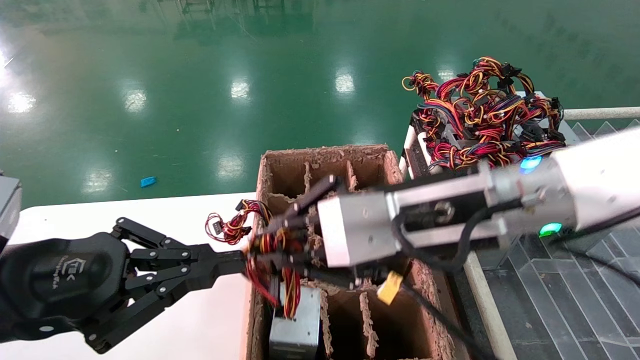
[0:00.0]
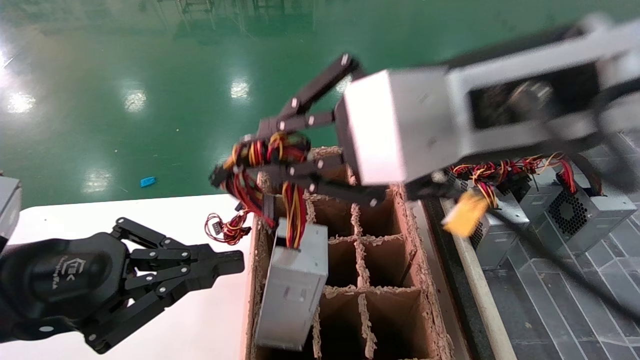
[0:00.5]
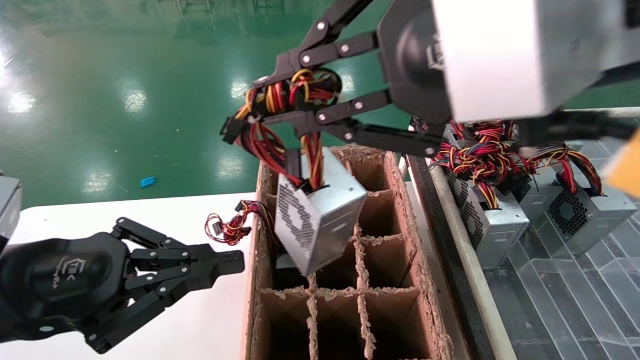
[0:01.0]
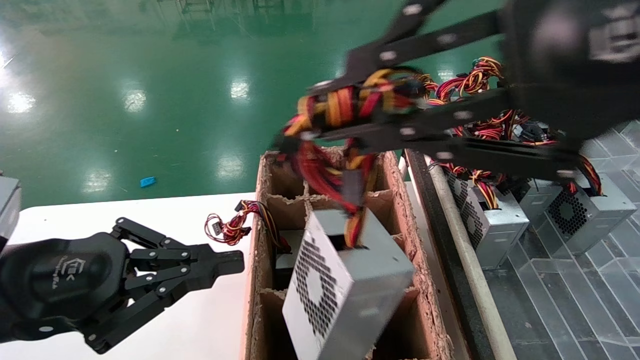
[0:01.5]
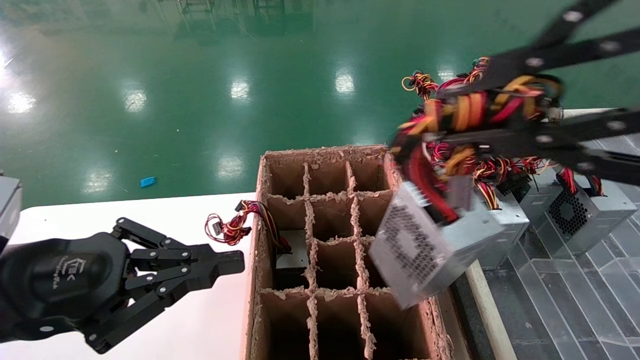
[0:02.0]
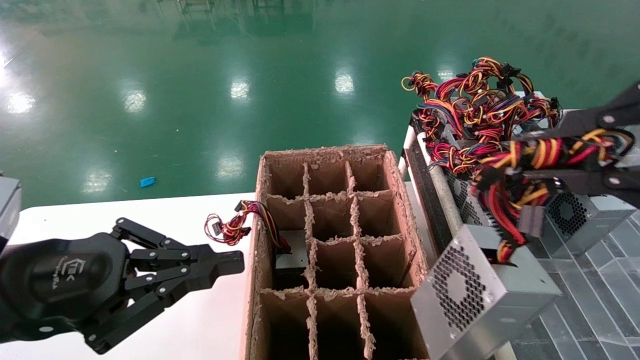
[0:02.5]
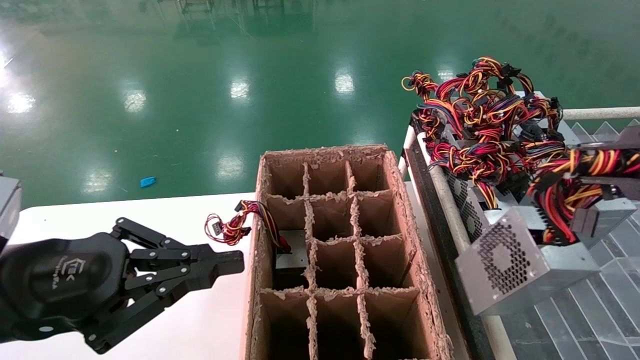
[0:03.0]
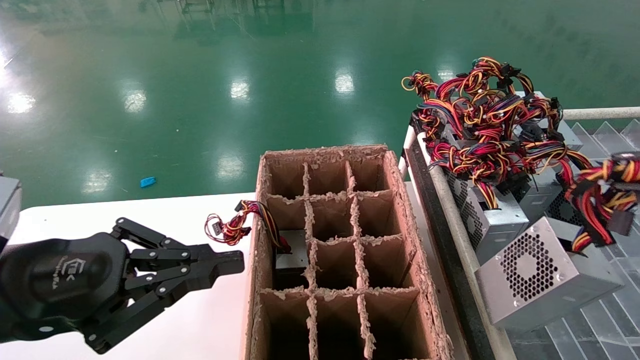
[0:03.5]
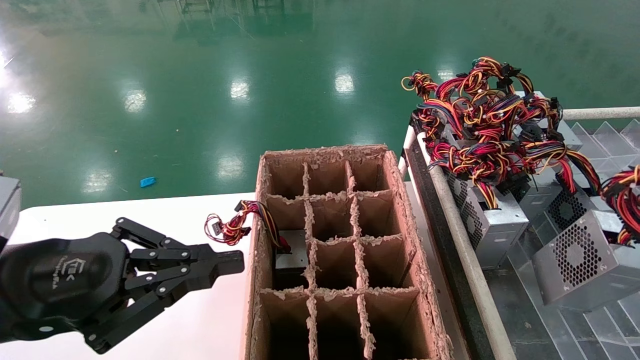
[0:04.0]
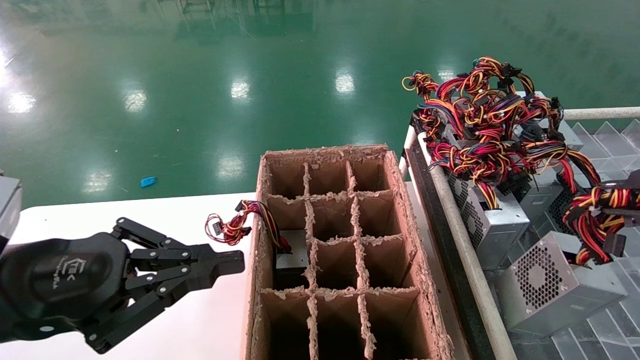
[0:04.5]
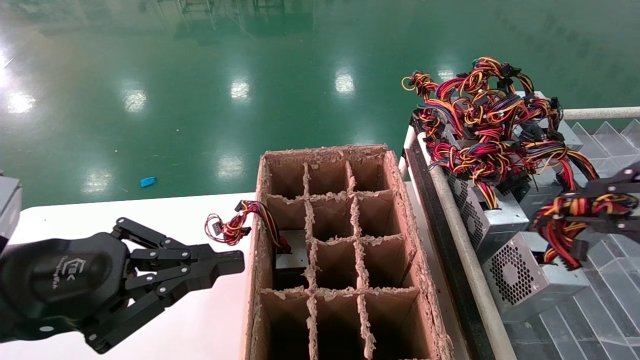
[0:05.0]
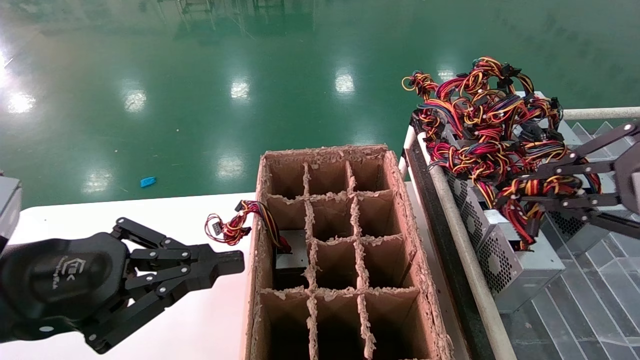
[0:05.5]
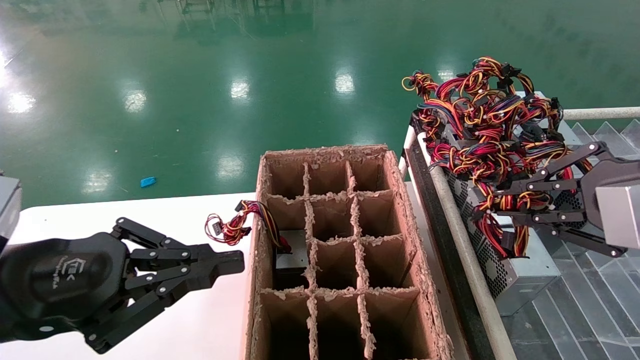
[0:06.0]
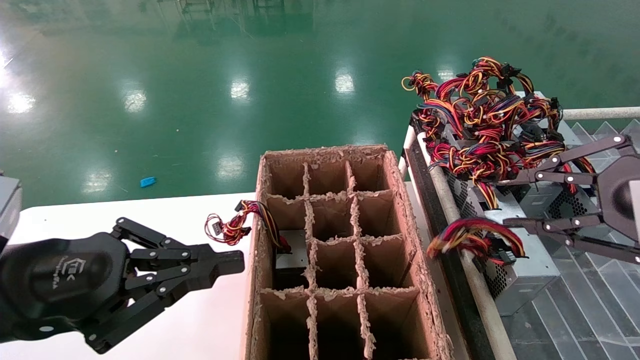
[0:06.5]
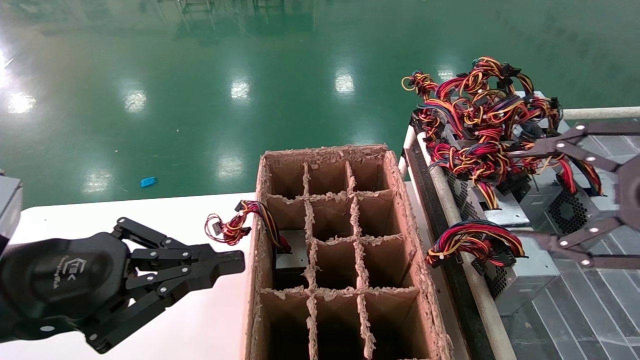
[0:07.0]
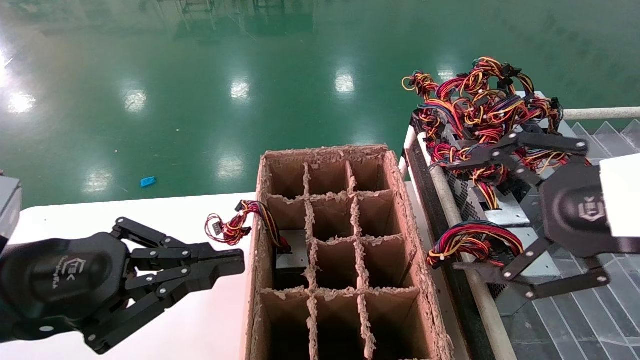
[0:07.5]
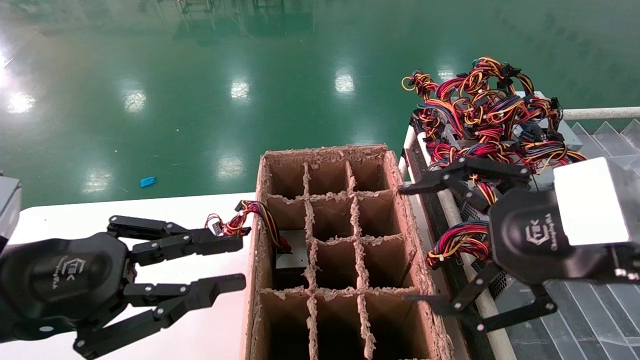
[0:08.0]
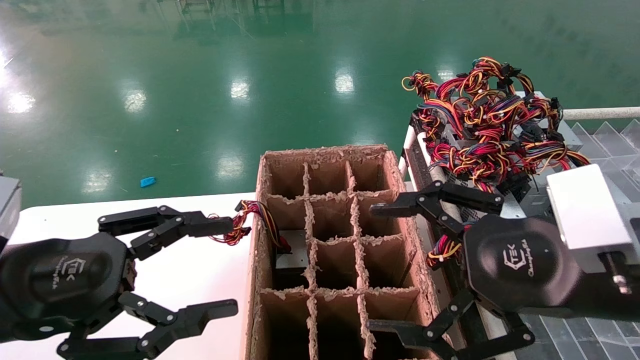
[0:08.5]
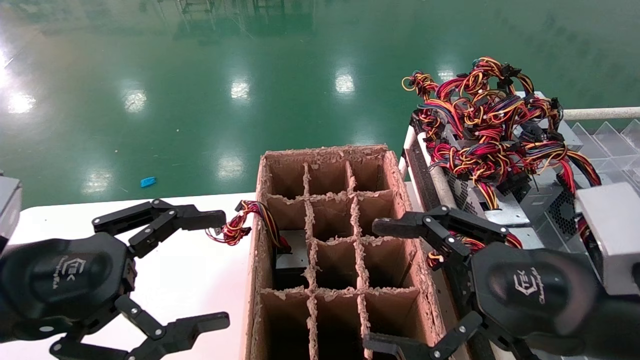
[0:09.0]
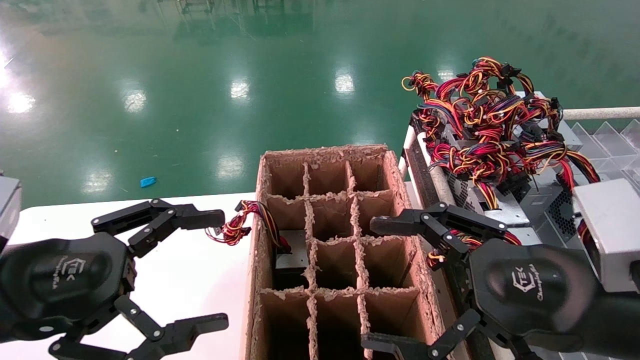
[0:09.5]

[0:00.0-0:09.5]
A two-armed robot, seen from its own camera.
Step, 0:00.0 to 0:06.5: Place the main unit power supply in the designated area.
0:00.0 to 0:02.0: The right gripper goes some 25 cm backward, upward and to the right.
0:02.0 to 0:04.0: The right gripper heads to the right and downward, covering roughly 15 cm.
0:04.0 to 0:05.5: The right gripper is displaced forward by about 10 cm.
0:05.5 to 0:07.5: The right gripper moves to the left, some 5 cm, and opens.
0:07.5 to 0:09.5: The left gripper opens; the right gripper is displaced downward by approximately 10 cm.

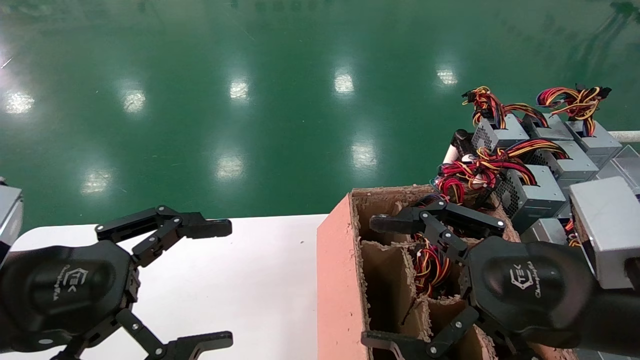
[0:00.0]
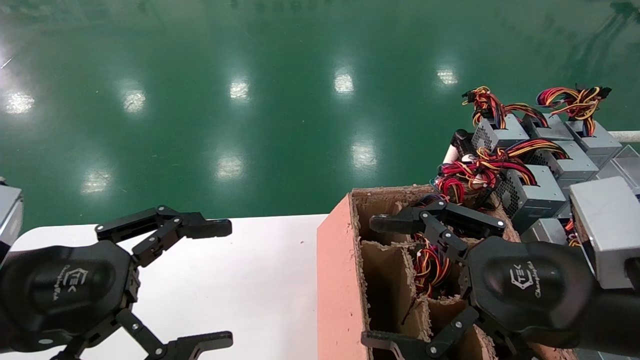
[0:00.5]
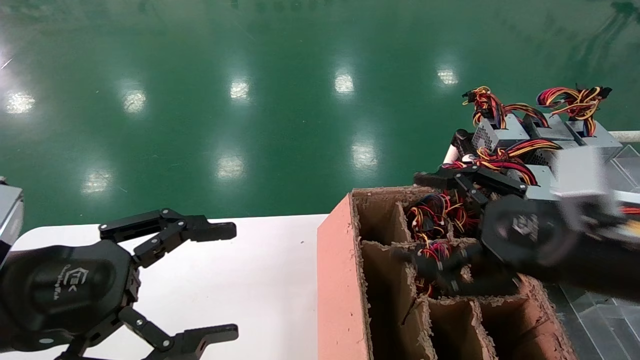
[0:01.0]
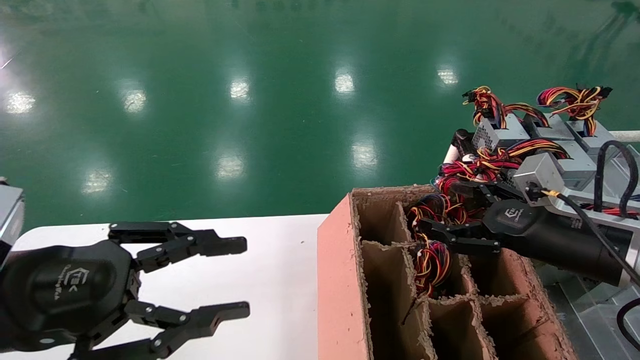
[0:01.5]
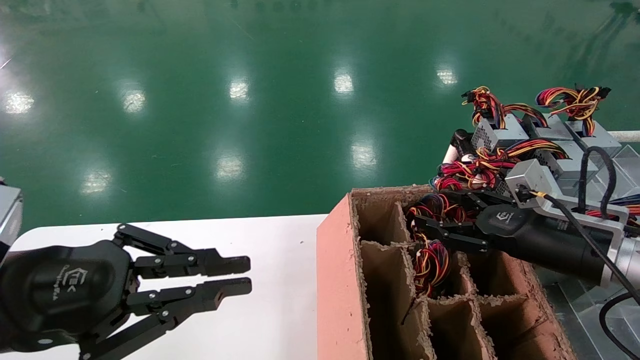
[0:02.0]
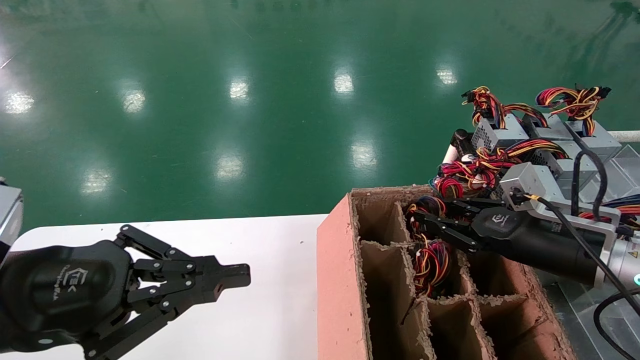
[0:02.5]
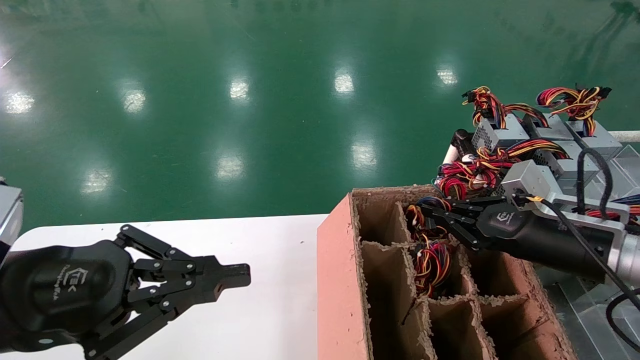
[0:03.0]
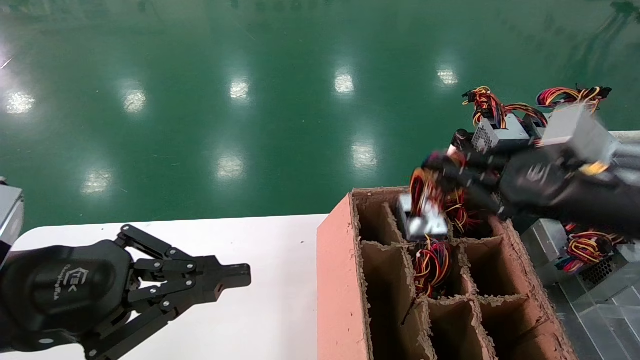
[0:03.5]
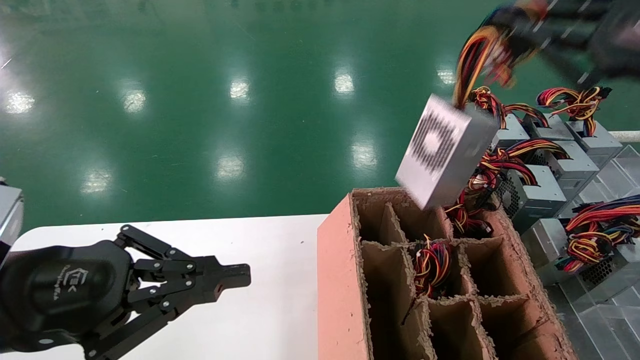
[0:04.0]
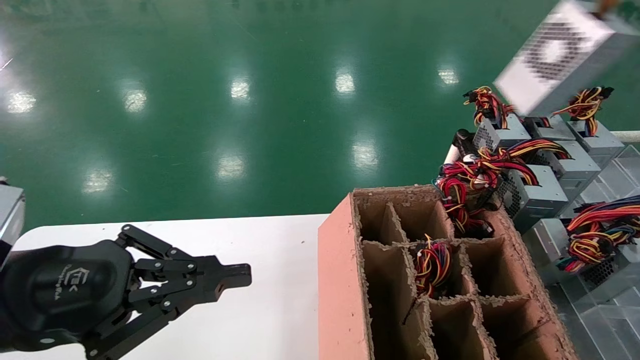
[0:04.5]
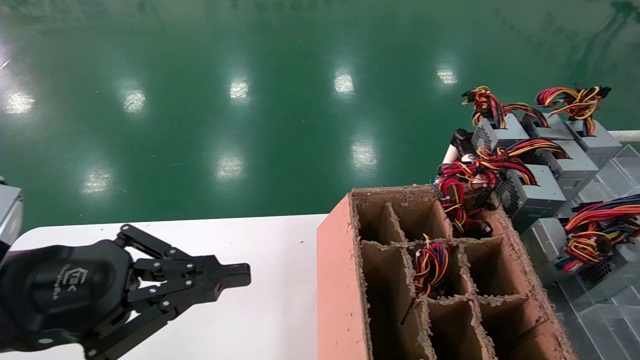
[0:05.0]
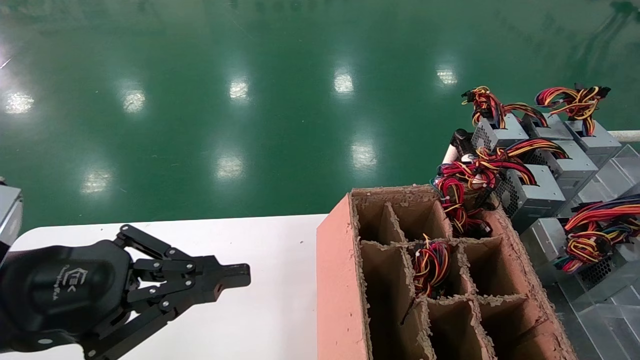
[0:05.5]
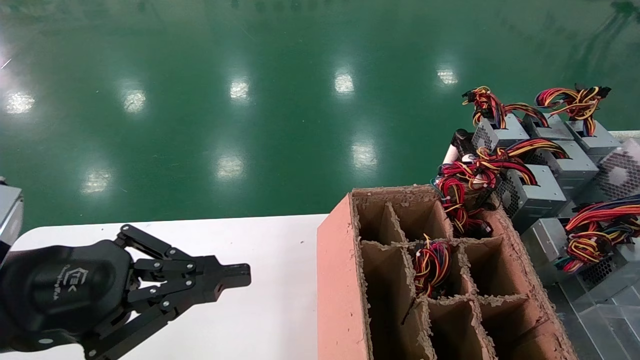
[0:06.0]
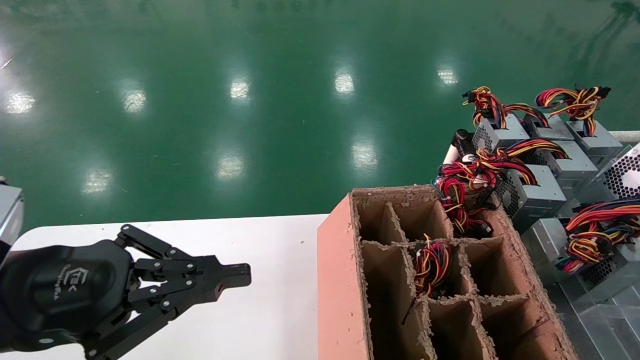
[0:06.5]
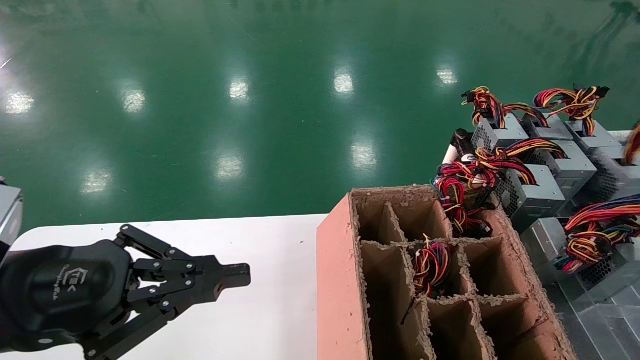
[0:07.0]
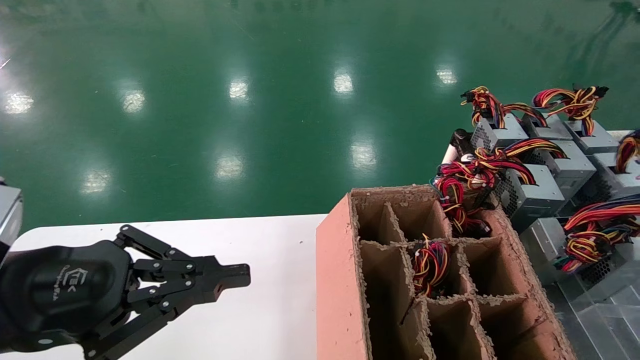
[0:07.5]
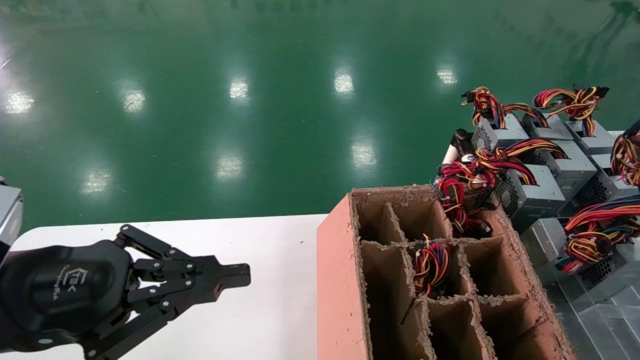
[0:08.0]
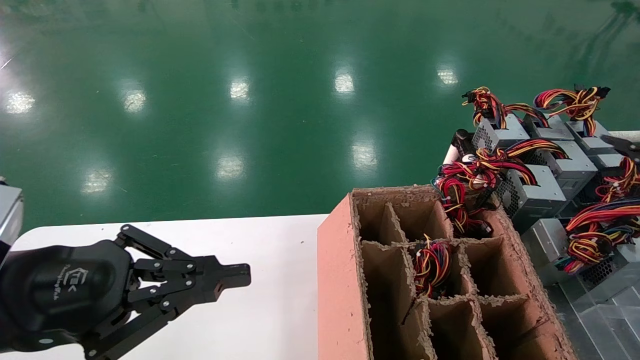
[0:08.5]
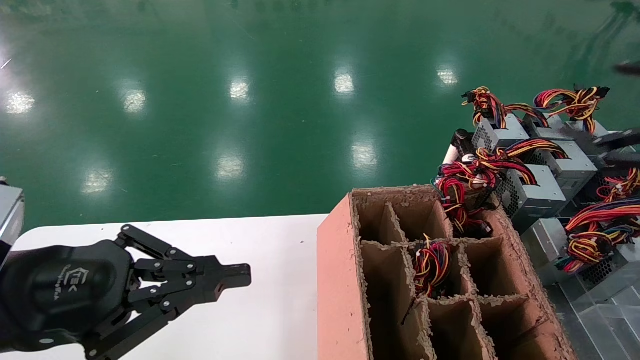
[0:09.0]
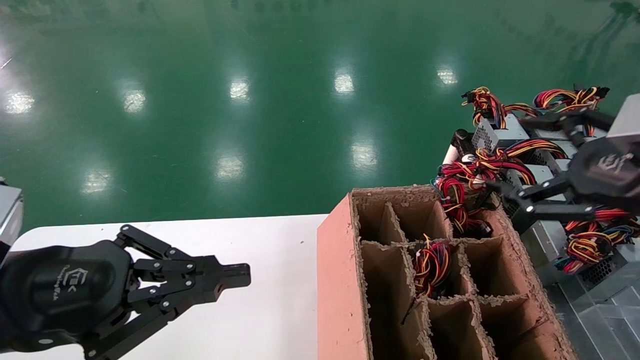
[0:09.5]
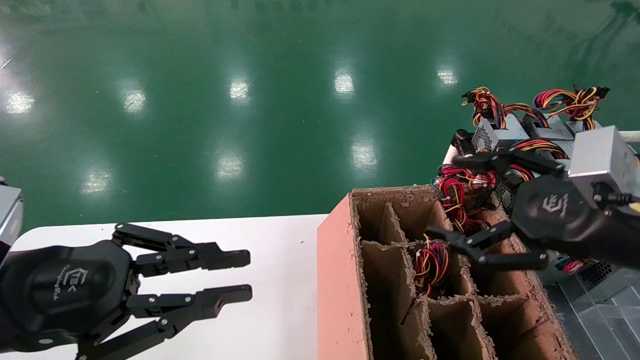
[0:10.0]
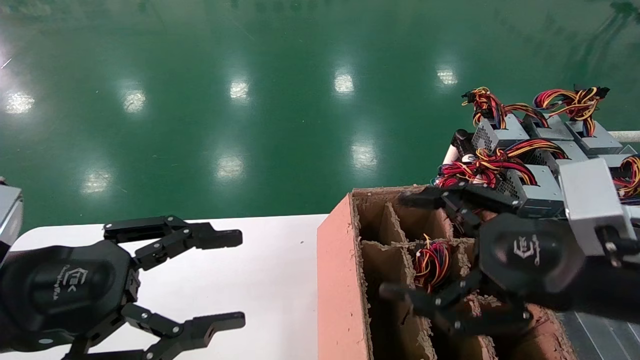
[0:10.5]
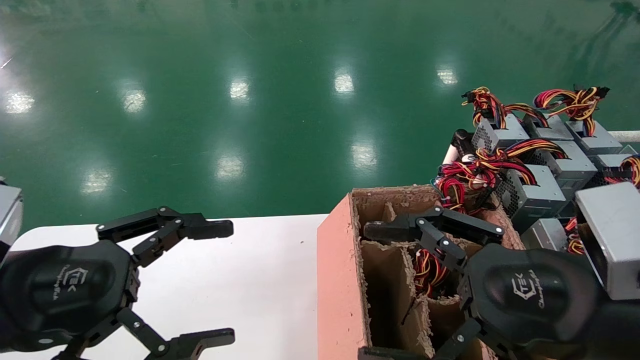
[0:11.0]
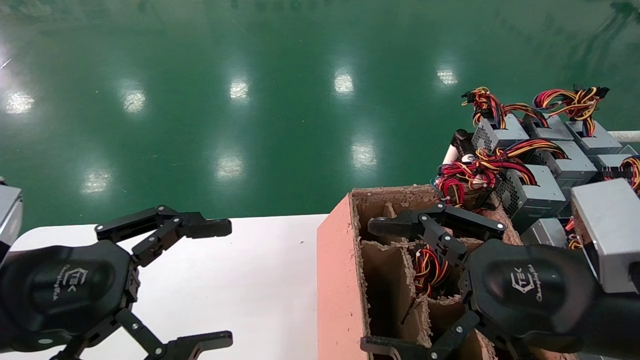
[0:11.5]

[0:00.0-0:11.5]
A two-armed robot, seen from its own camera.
Step, 0:01.5 to 0:03.0: Grab the main unit power supply from the containment box.
Step, 0:03.5 to 0:08.0: Place the main unit power supply in the designated area.
0:00.0 to 0:02.0: The right gripper is displaced forward and to the right by some 15 cm. Meanwhile the left gripper closes its fingers.
0:02.0 to 0:04.0: The right gripper heads upward and backward, covering about 25 cm, and closes its fingers.
0:04.0 to 0:06.0: The right gripper moves to the right, about 20 cm.
0:06.0 to 0:07.5: The right gripper shifts by roughly 5 cm.
0:07.5 to 0:09.5: The right gripper travels to the left by roughly 15 cm, and opens its fingers.
0:09.5 to 0:11.5: The right gripper heads to the left and downward, covering some 15 cm. Meanwhile the left gripper opens its fingers.
